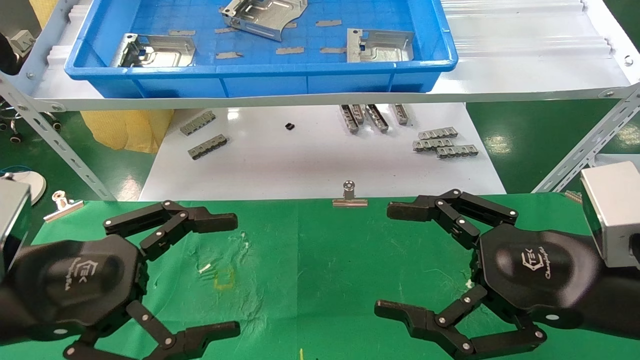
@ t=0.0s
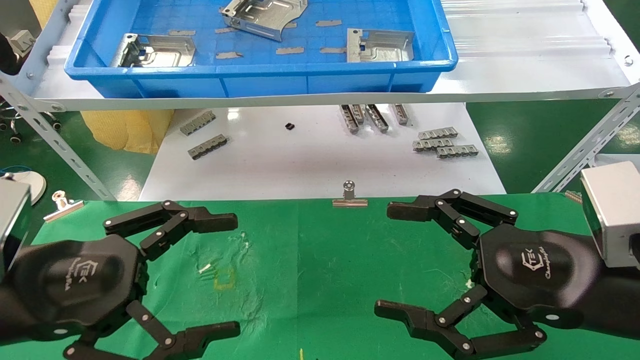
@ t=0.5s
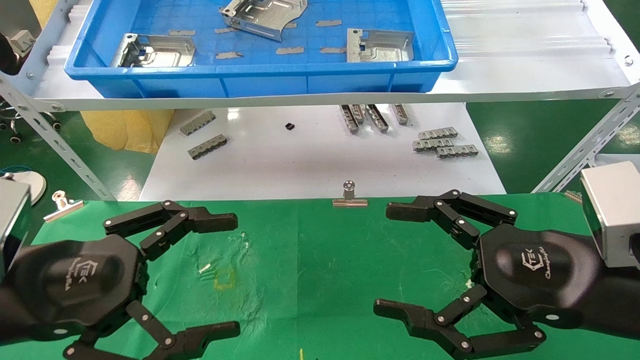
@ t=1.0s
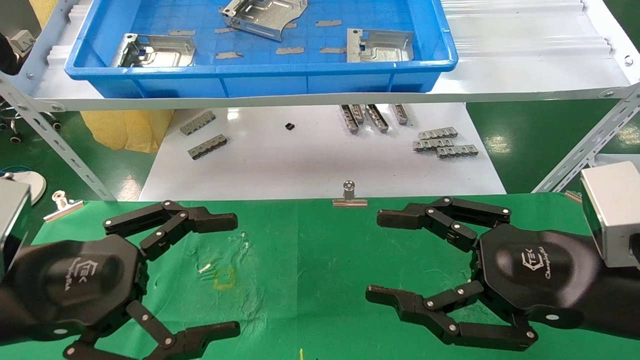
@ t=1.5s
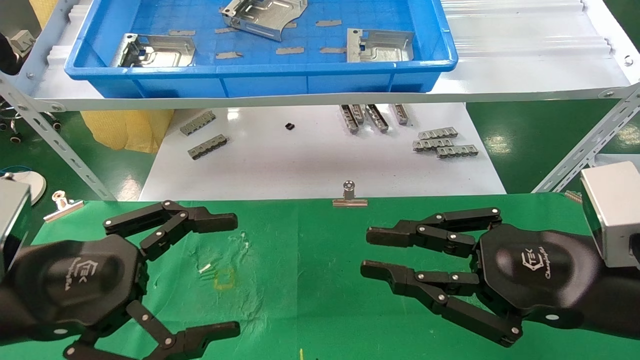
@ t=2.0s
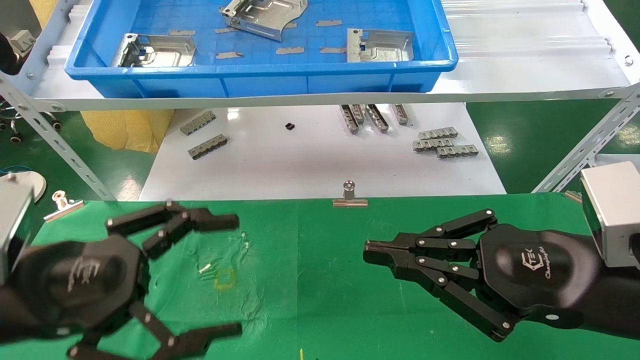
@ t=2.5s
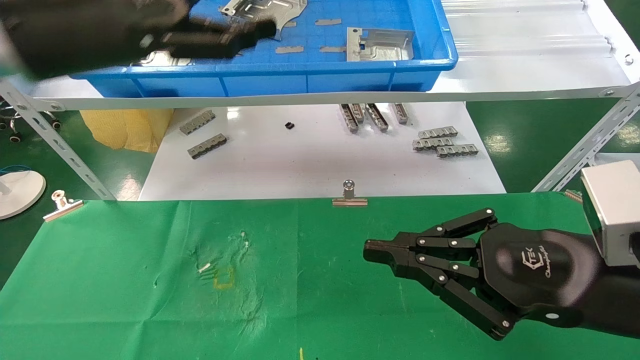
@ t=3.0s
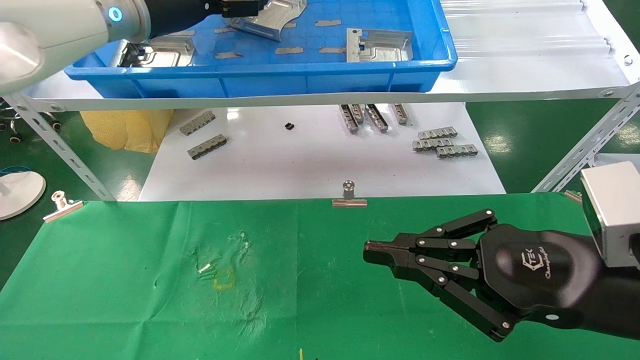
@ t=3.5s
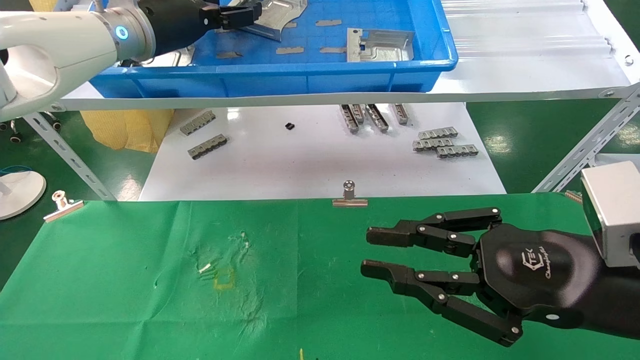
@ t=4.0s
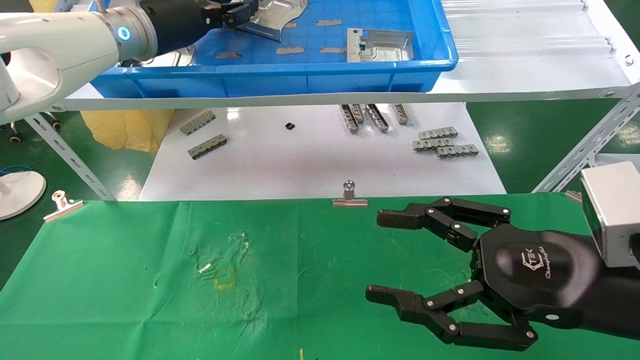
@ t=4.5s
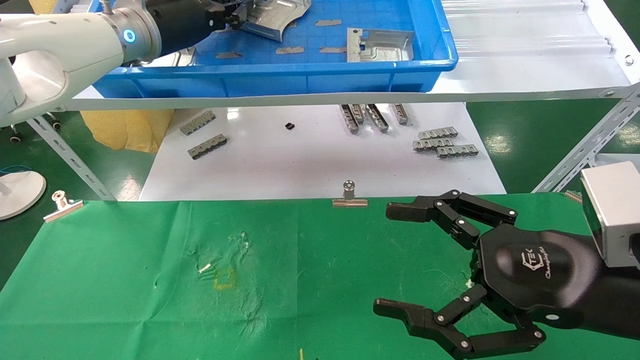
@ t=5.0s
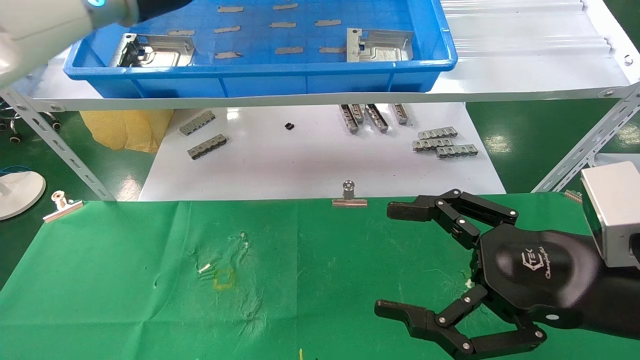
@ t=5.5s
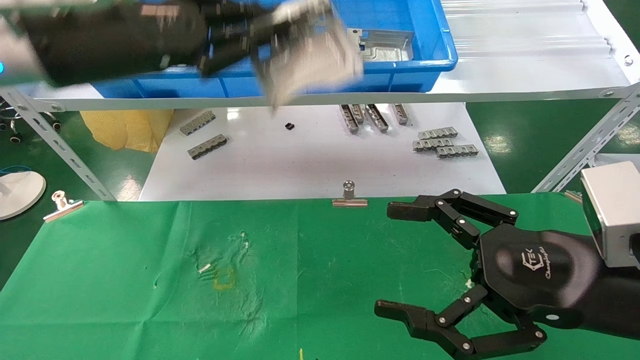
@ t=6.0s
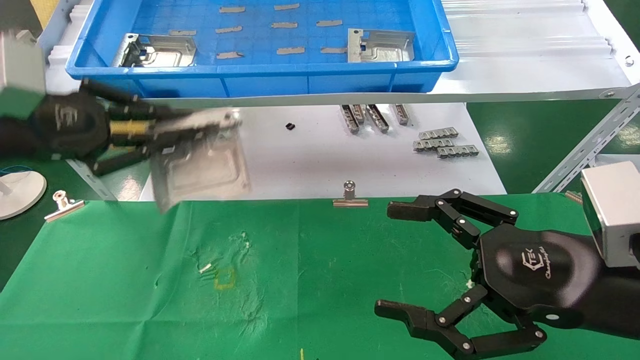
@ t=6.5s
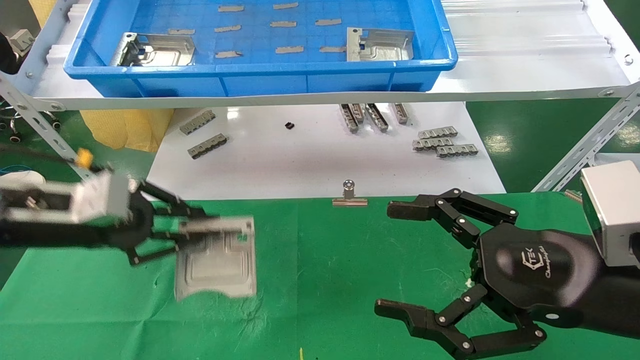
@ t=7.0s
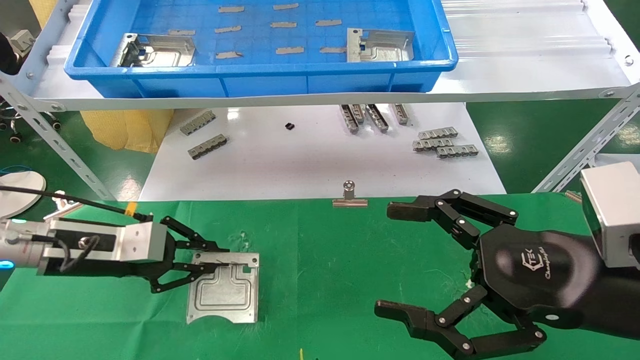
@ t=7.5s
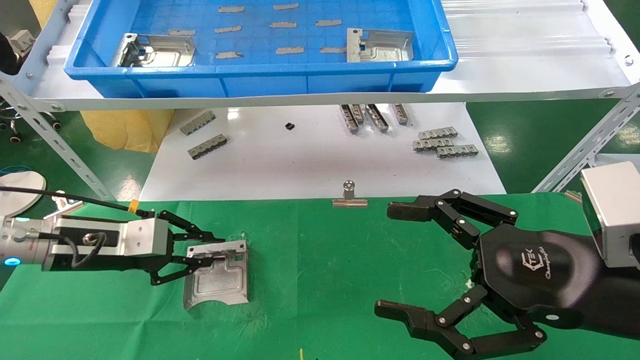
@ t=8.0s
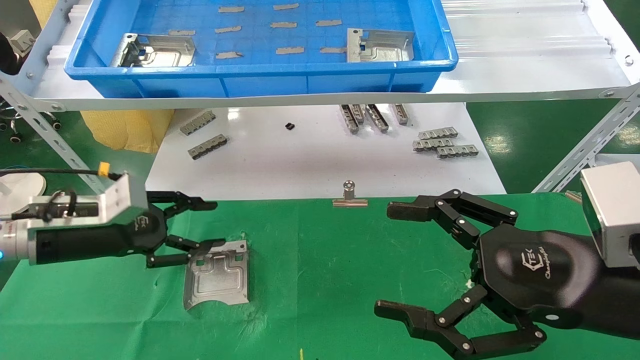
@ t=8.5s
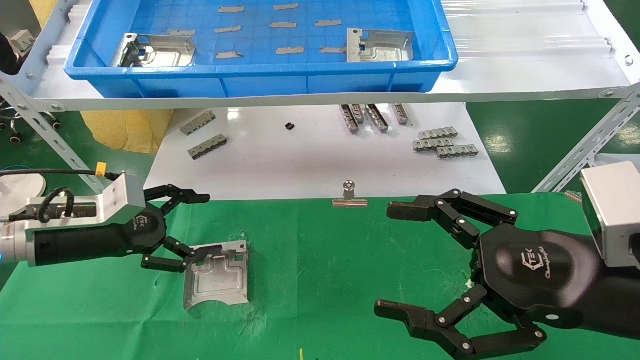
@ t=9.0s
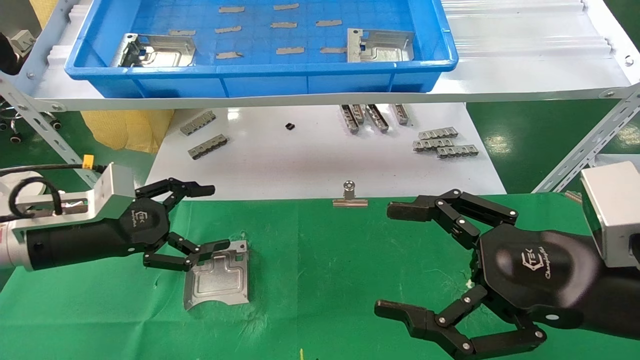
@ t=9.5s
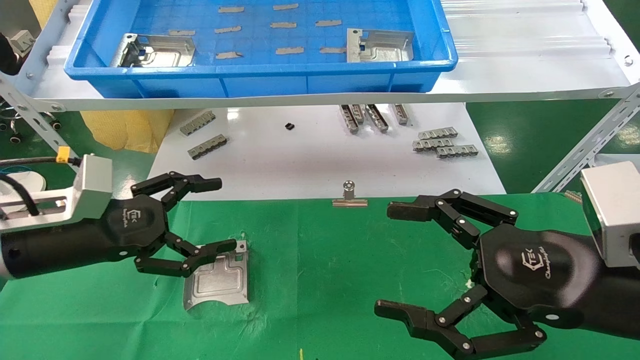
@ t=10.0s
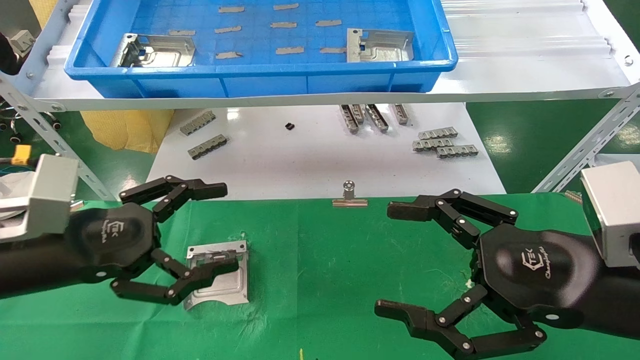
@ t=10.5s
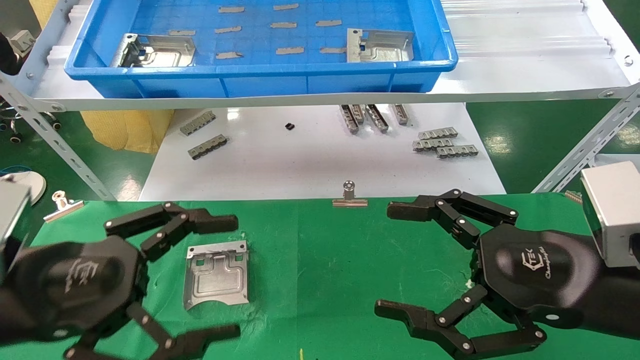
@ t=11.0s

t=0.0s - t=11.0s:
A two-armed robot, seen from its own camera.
Task of the whole recording: use the mechanical arm to pick up the parts and place them on the table.
Step, t=3.0s - t=4.5s: Pick up the hard drive bracket from the feeding area.
Step, t=5.0s - t=8.0s: Place the hard drive bracket into the box.
t=0.0s - t=2.0s: The right gripper closes.
t=2.0s - t=3.5s: The left gripper heads forward and upward, covering about 35 cm.
t=3.5s - t=5.5s: The right gripper opens its fingers. Meanwhile the left gripper closes.
t=5.5s - t=7.5s: The left gripper moves downward and to the left, some 30 cm.
t=7.5s - t=9.0s: The left gripper opens up.
t=9.0s - t=11.0s: The left gripper heads backward, covering roughly 15 cm.

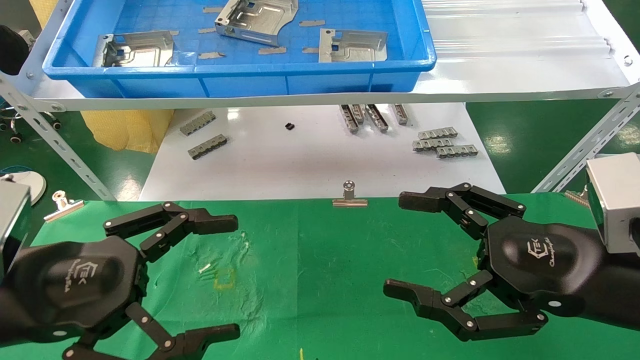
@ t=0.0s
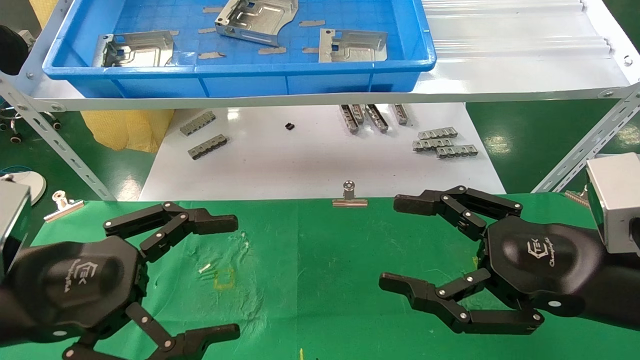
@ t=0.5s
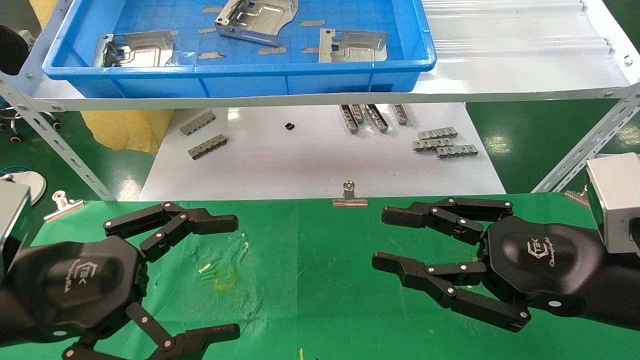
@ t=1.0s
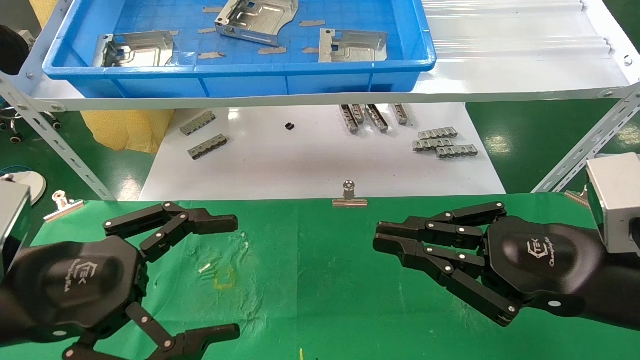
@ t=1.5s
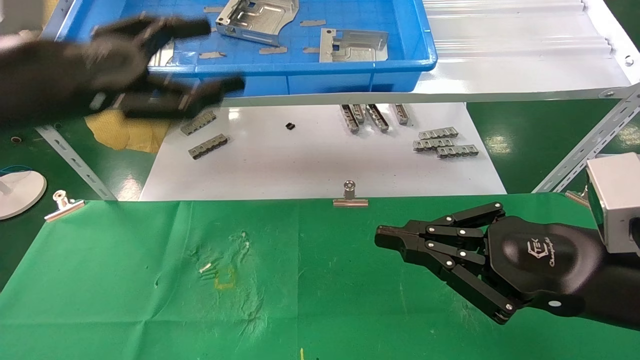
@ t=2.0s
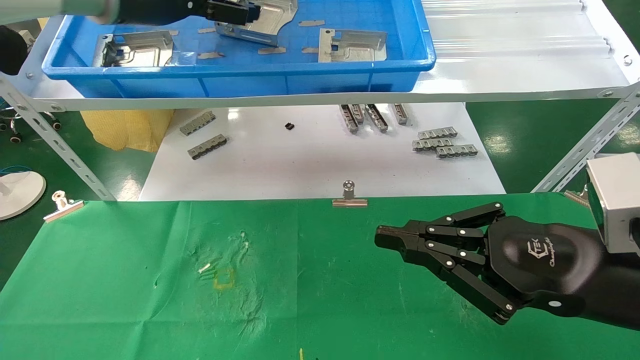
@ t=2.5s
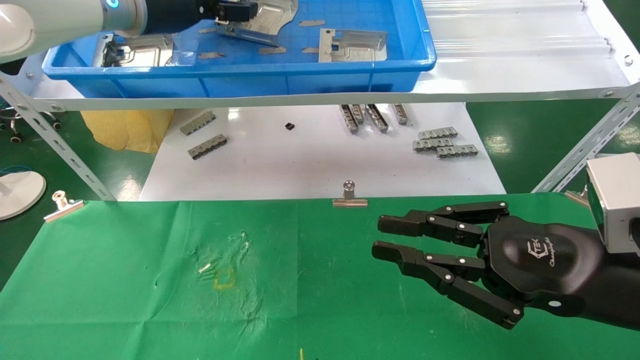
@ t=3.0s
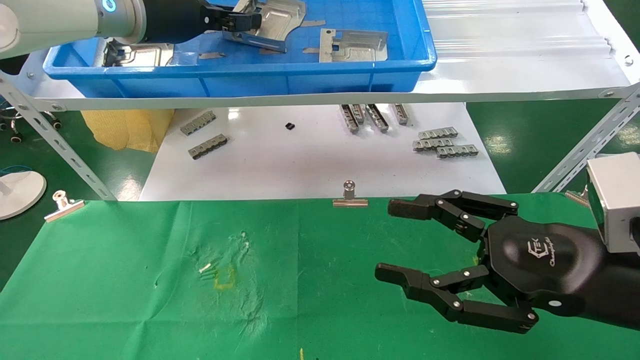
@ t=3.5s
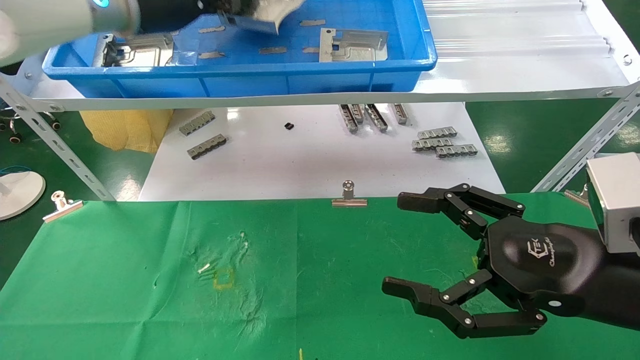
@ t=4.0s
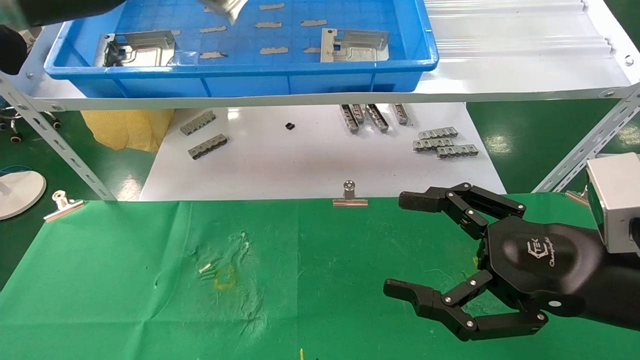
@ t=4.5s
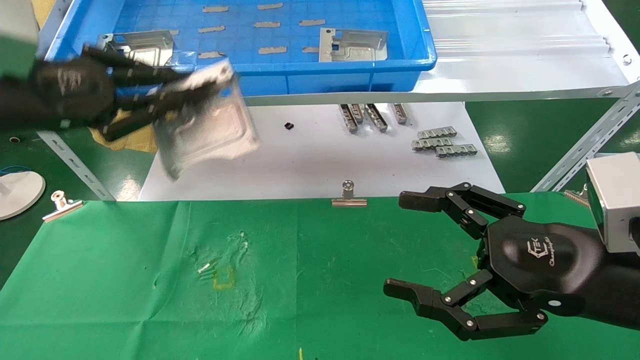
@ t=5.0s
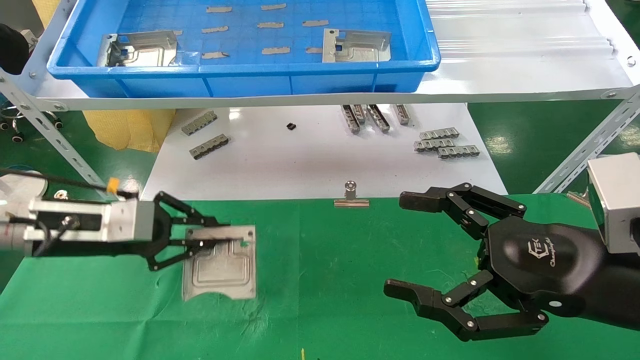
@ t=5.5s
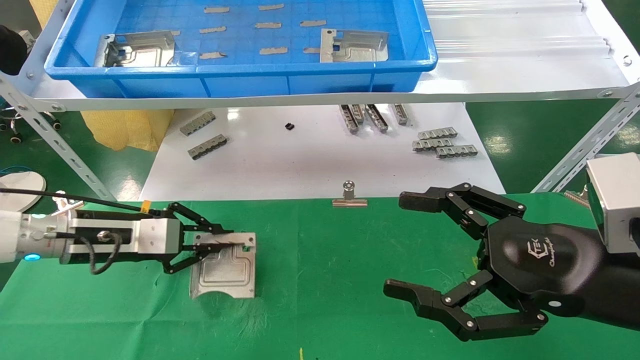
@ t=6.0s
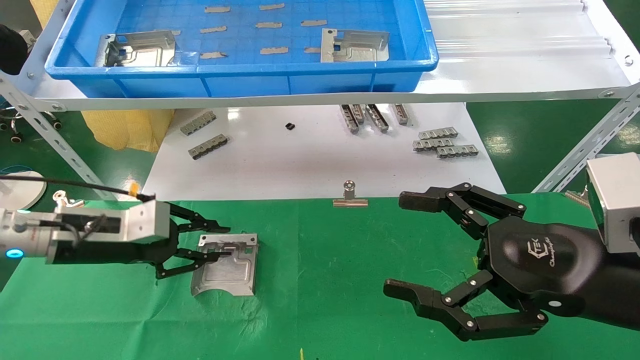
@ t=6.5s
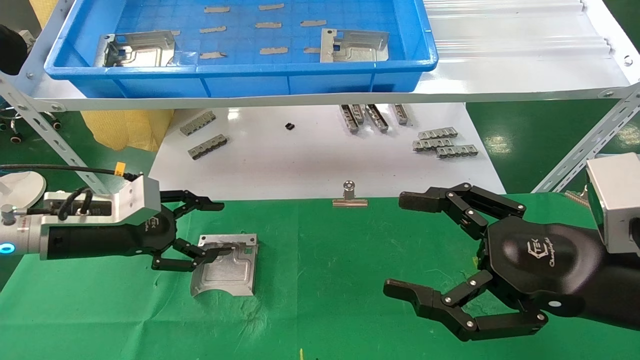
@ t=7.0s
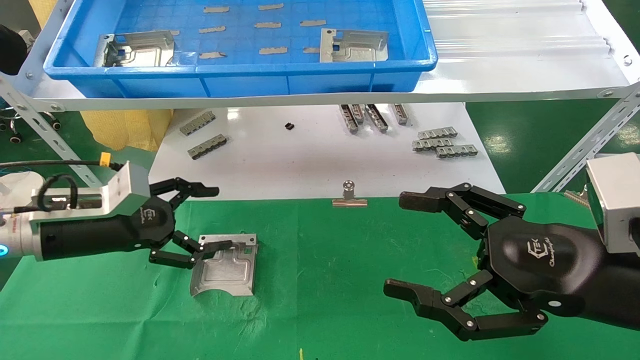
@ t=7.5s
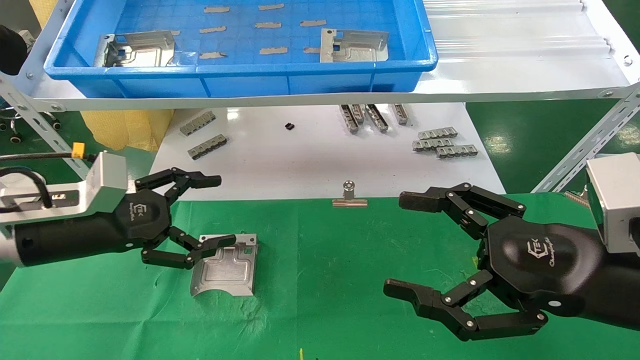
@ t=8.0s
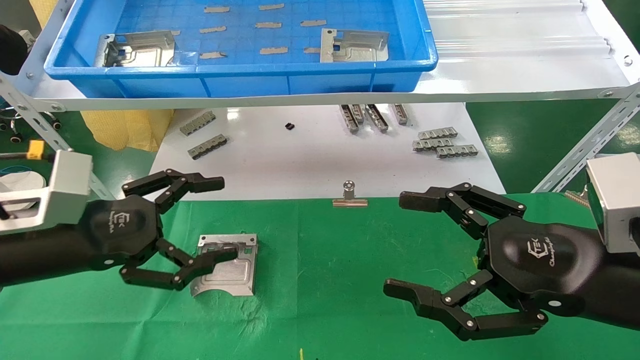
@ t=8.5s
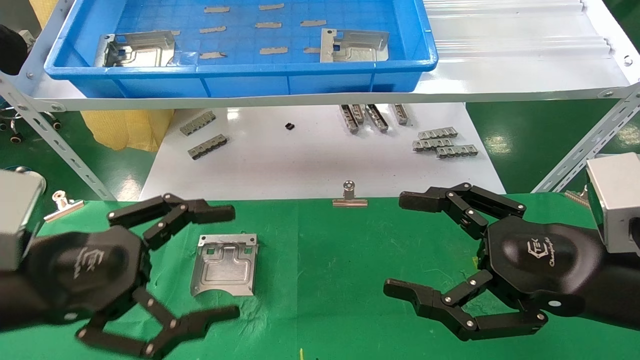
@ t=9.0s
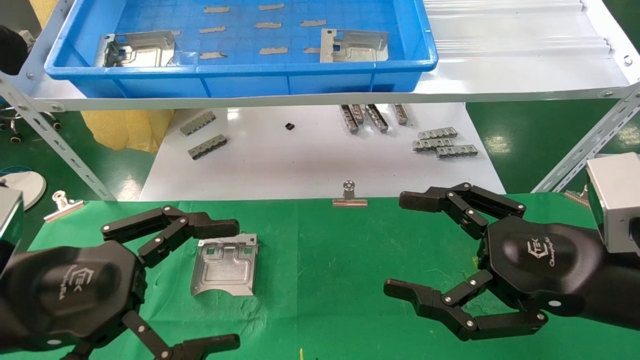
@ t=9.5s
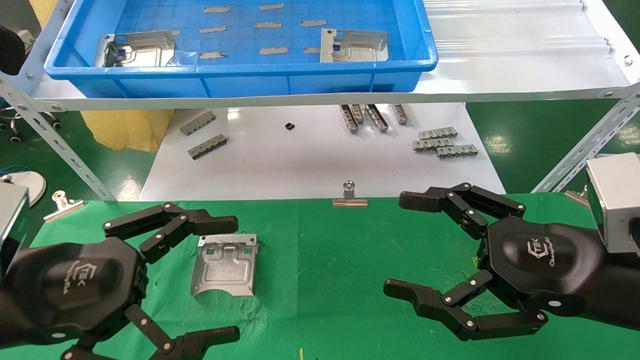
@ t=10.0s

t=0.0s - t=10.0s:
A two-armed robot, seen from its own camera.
Task of the whole recording: use the mechanical arm to pick up the parts and place them on the table.
Step, t=2.0s - t=3.5s: Pick up the hard drive bracket from the feeding area.
Step, t=4.0s - t=6.5s: Place the hard drive bracket into the box.
t=0.0s - t=2.0s: The right gripper closes; the left gripper goes about 15 cm upward and forward.
t=2.0s - t=4.0s: The right gripper opens its fingers; the left gripper shifts roughly 15 cm forward and upward, and closes its fingers.
t=4.0s - t=6.0s: The left gripper goes some 30 cm downward.
t=6.0s - t=8.0s: The left gripper travels backward by some 5 cm, and opens its fingers.
t=8.0s - t=10.0s: The left gripper moves backward, approximately 15 cm.
